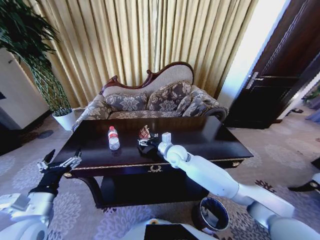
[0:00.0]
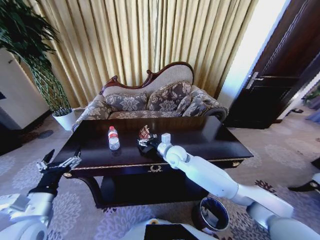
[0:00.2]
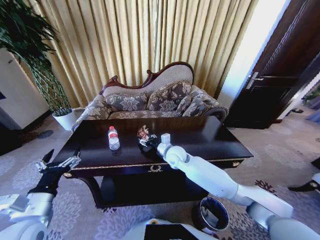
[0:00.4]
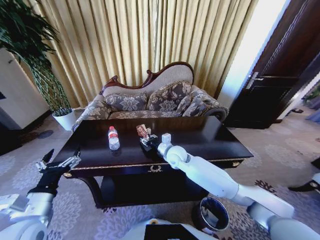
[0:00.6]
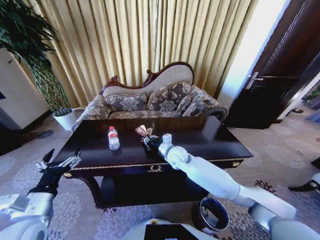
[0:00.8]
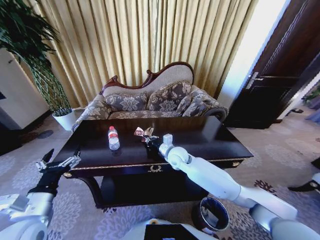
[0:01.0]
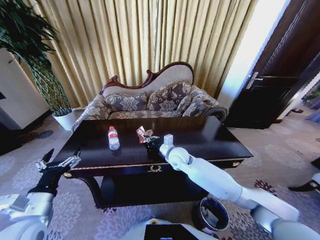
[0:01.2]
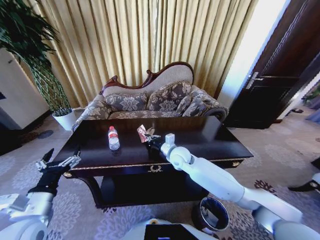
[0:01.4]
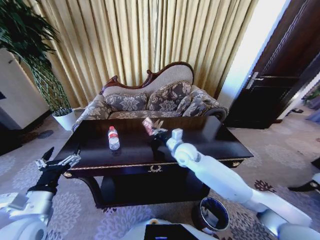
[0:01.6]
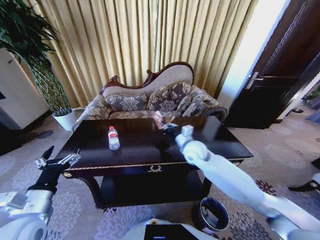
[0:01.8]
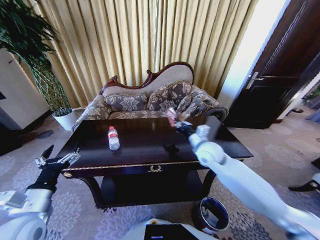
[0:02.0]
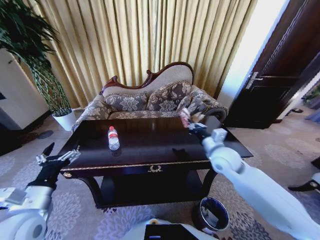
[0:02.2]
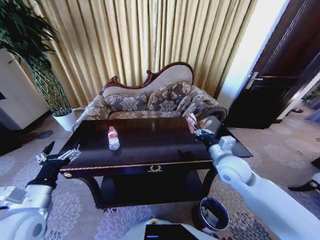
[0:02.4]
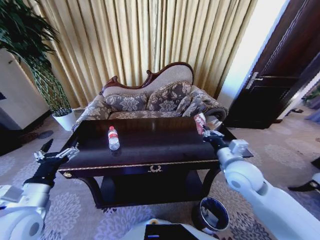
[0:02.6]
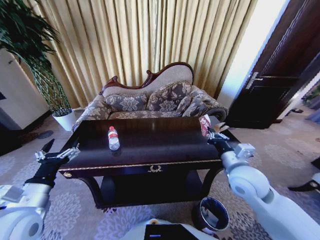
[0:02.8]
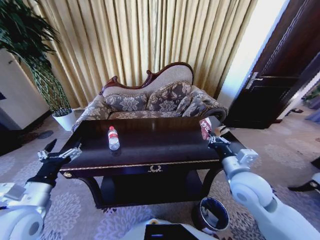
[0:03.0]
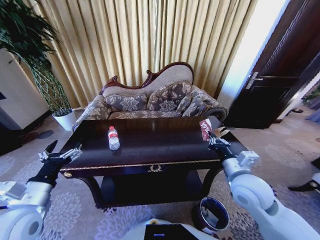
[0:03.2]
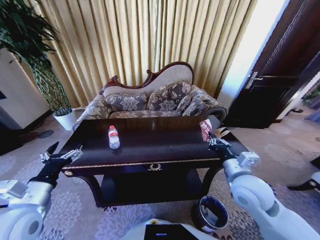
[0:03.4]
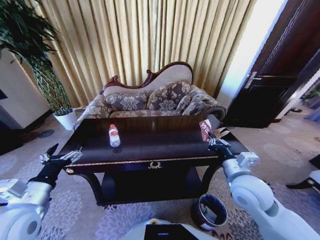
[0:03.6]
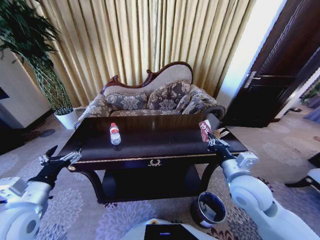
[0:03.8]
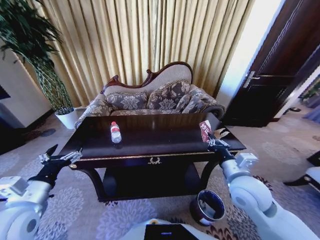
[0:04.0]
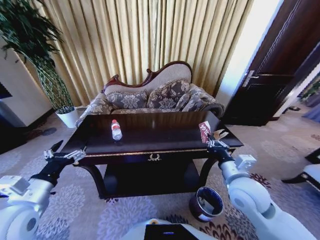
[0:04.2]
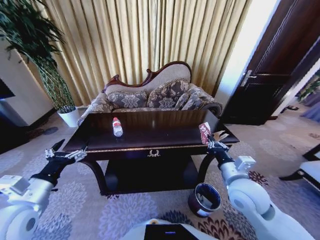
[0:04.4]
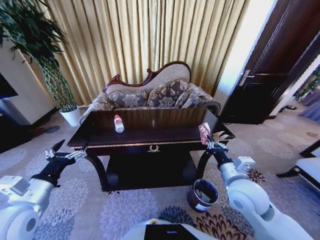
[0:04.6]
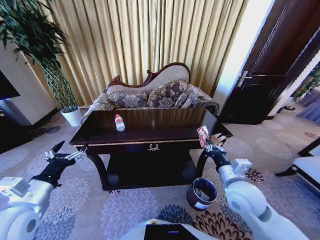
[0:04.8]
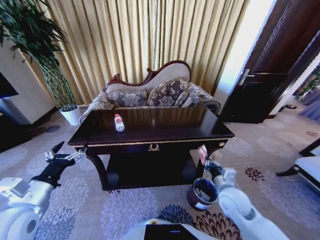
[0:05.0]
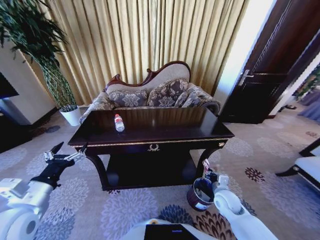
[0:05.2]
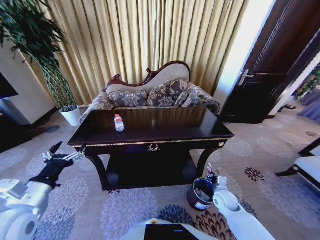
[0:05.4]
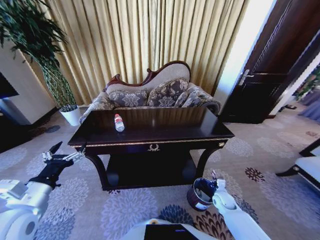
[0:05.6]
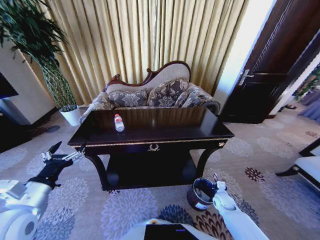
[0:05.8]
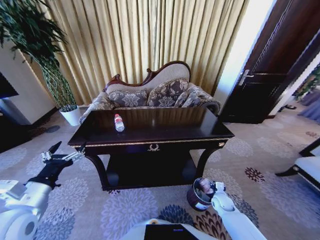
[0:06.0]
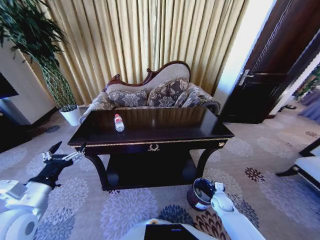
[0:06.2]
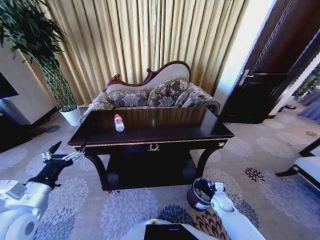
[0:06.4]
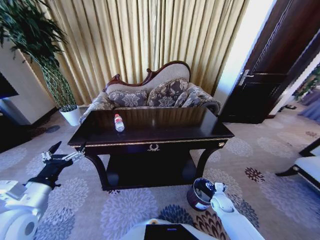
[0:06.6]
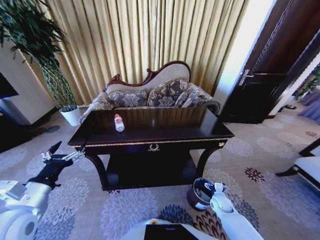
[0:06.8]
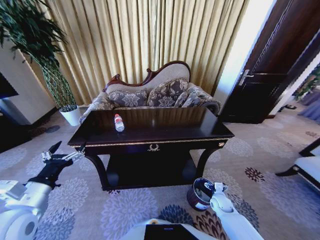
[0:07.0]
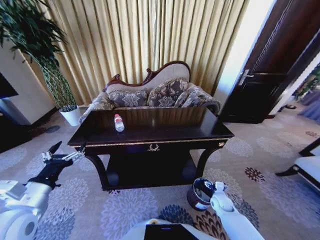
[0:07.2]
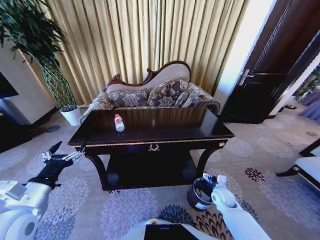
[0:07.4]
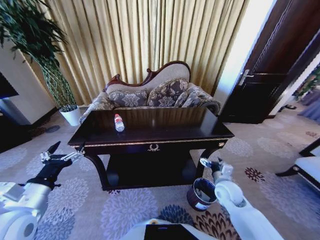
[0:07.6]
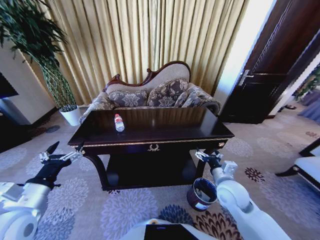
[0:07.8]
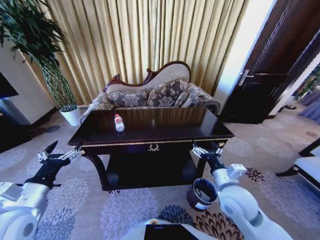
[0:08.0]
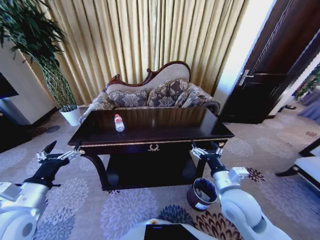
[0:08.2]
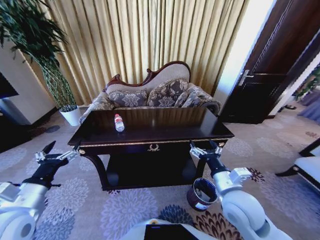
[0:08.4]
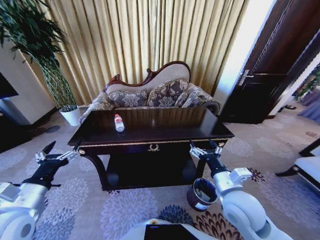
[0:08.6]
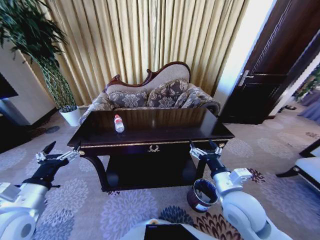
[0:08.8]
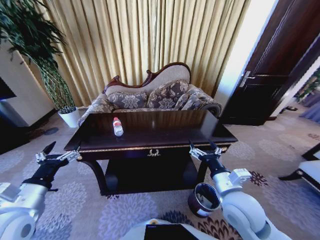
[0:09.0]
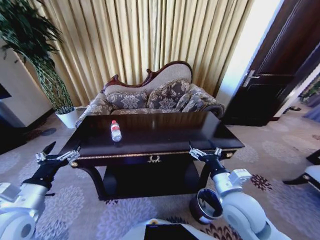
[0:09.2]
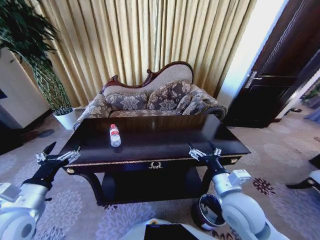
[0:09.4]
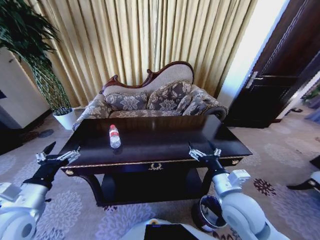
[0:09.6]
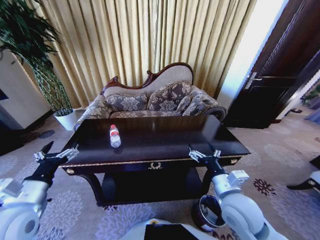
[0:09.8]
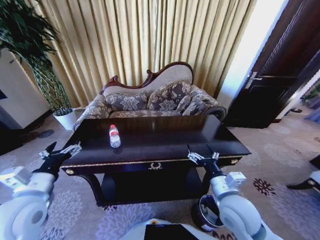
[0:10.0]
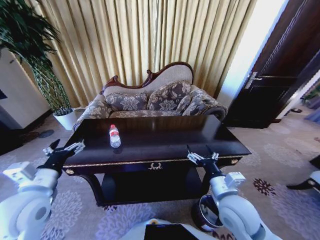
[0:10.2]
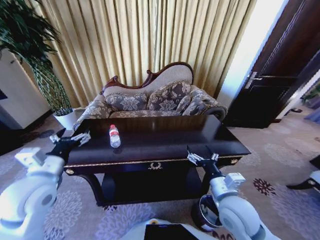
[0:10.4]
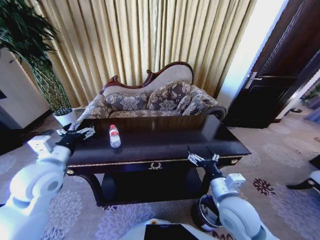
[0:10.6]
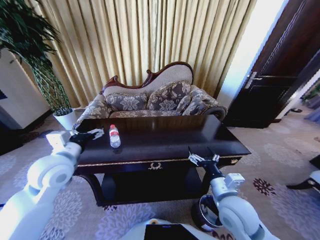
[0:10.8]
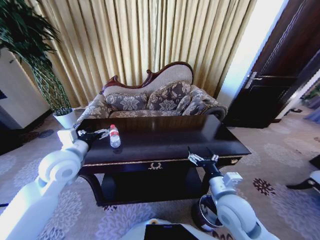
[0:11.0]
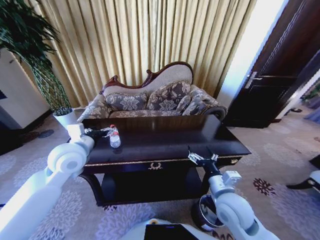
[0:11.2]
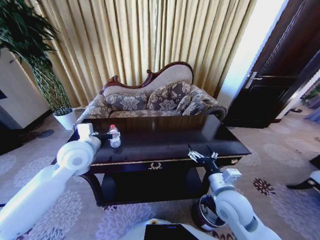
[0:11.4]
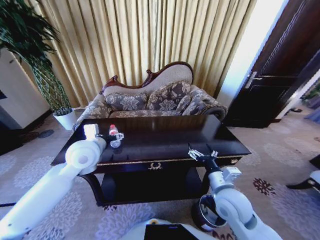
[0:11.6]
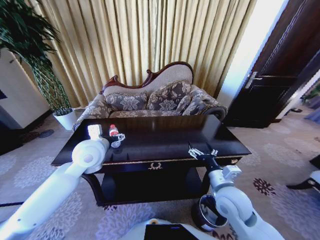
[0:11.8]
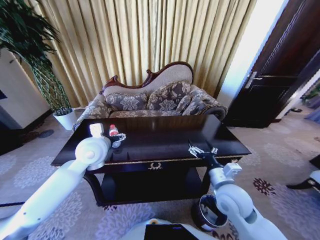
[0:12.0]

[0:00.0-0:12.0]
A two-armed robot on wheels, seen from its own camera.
Task of the whole recording: Move to the front of the table and place the trash on the table into the trash bin.
0:00.0 to 0:01.6: The right gripper closes its fingers.
0:01.6 to 0:03.0: The right gripper goes approximately 20 cm backward and to the right.
0:04.4 to 0:06.0: The right gripper moves downward, roughly 30 cm.
0:06.0 to 0:07.6: The right gripper shifts some 15 cm upward, and opens up.
0:07.6 to 0:09.0: The right gripper shifts approximately 15 cm upward, backward and to the left.
0:09.0 to 0:10.4: The left gripper moves forward, about 5 cm.
0:10.4 to 0:12.0: The left gripper shifts about 15 cm forward and to the right.

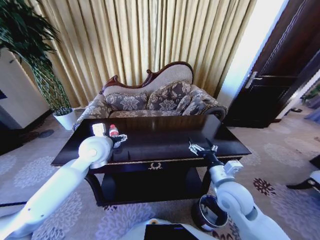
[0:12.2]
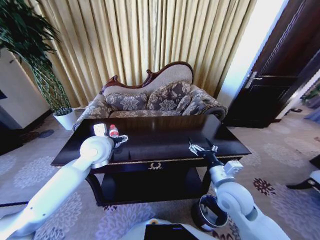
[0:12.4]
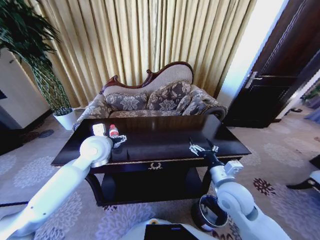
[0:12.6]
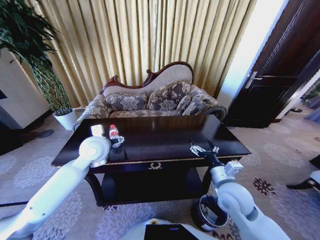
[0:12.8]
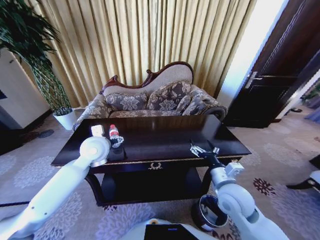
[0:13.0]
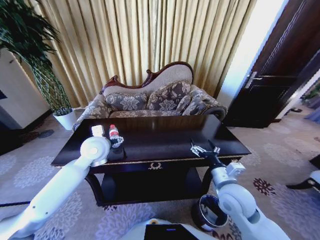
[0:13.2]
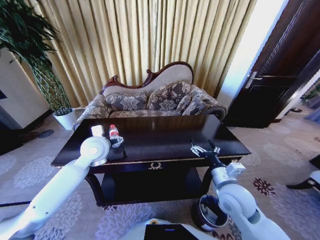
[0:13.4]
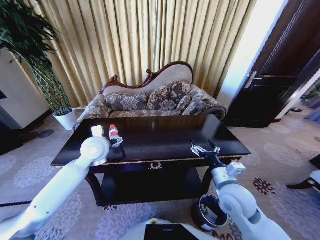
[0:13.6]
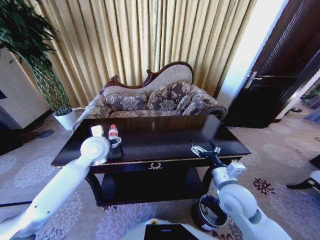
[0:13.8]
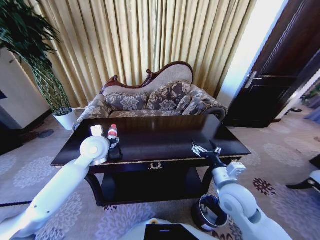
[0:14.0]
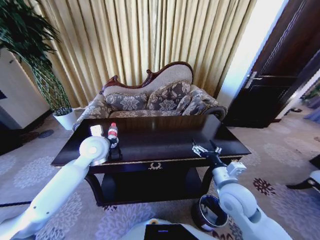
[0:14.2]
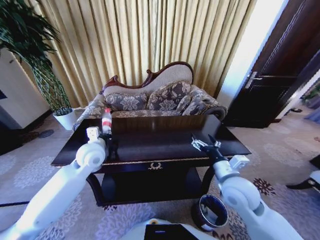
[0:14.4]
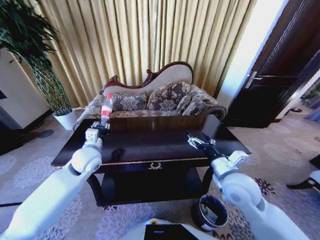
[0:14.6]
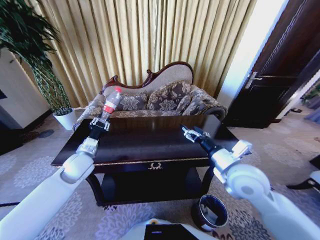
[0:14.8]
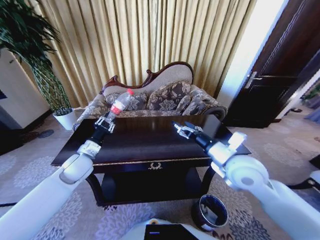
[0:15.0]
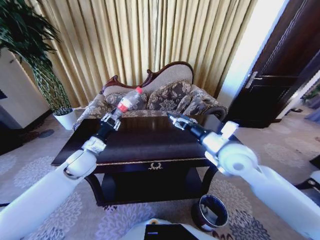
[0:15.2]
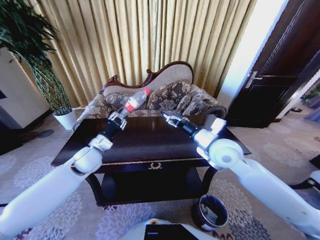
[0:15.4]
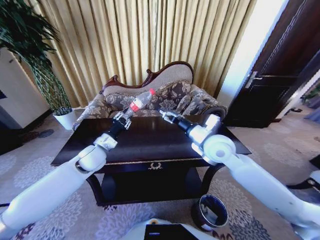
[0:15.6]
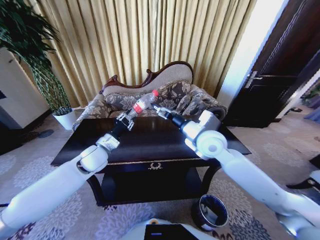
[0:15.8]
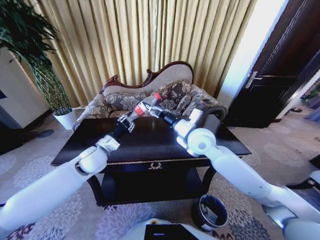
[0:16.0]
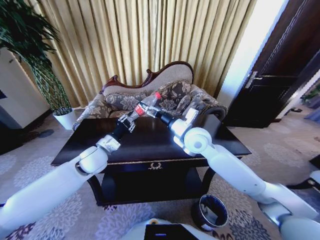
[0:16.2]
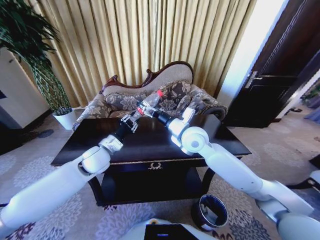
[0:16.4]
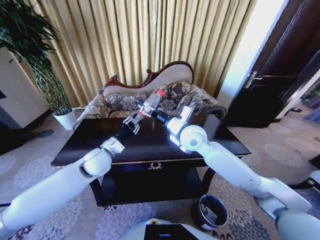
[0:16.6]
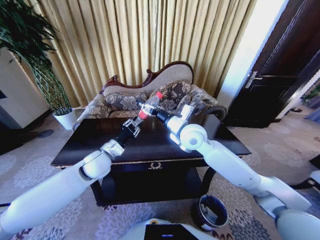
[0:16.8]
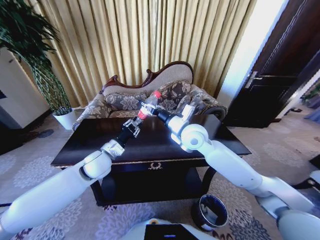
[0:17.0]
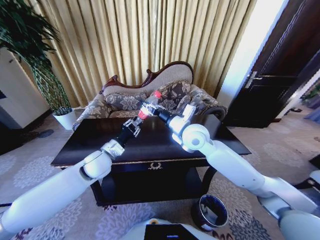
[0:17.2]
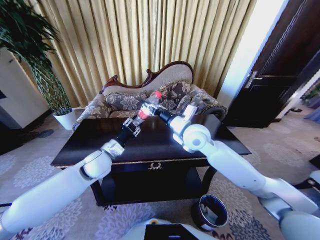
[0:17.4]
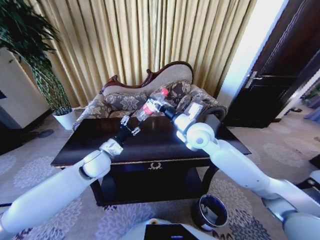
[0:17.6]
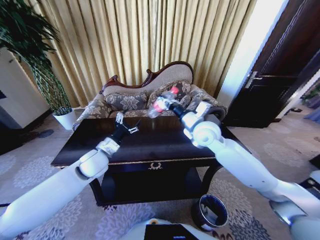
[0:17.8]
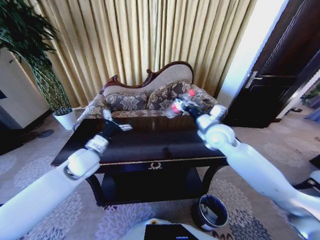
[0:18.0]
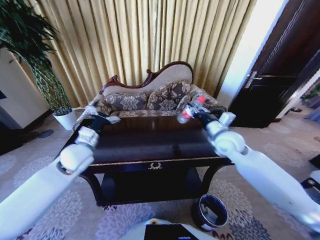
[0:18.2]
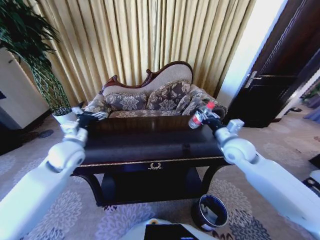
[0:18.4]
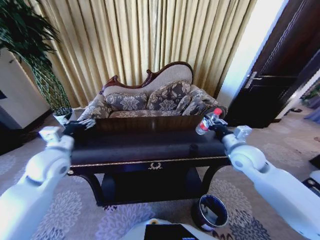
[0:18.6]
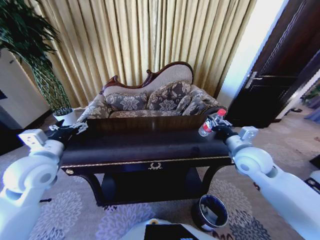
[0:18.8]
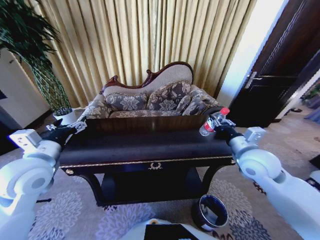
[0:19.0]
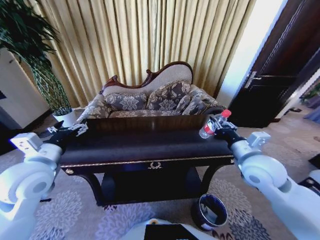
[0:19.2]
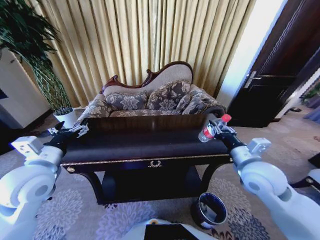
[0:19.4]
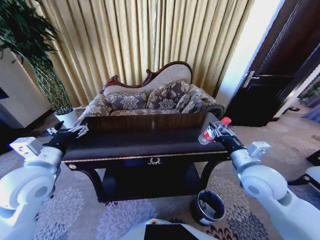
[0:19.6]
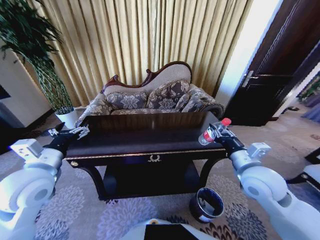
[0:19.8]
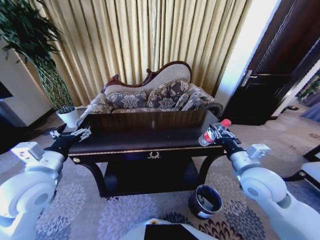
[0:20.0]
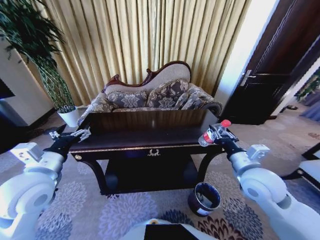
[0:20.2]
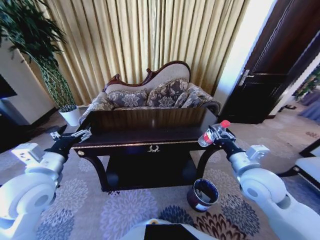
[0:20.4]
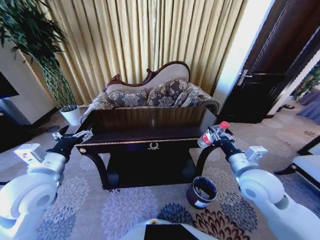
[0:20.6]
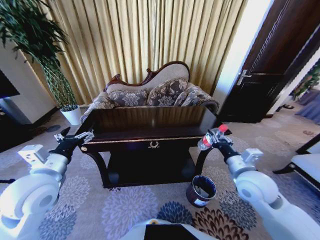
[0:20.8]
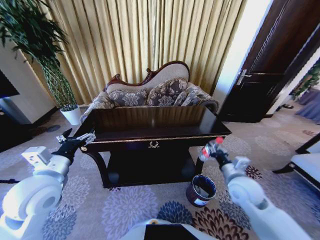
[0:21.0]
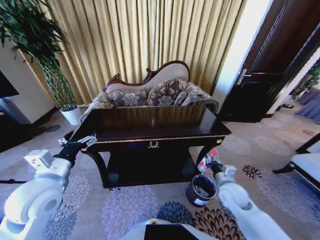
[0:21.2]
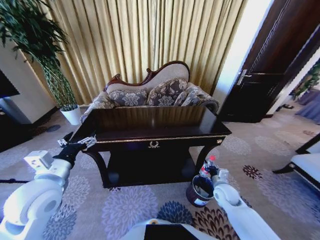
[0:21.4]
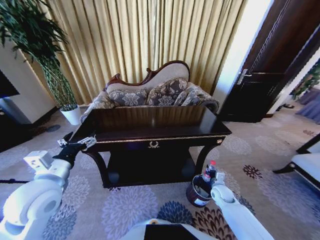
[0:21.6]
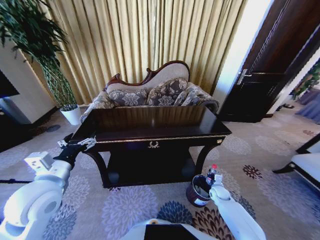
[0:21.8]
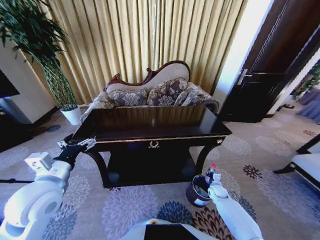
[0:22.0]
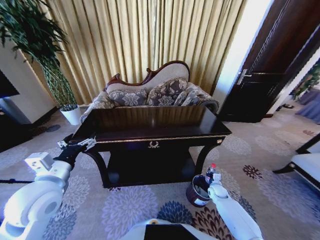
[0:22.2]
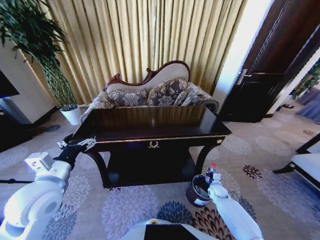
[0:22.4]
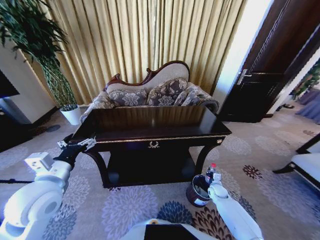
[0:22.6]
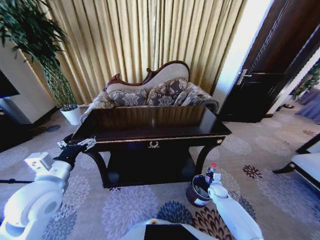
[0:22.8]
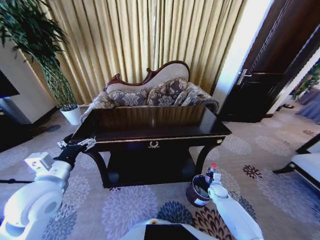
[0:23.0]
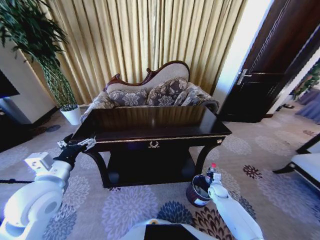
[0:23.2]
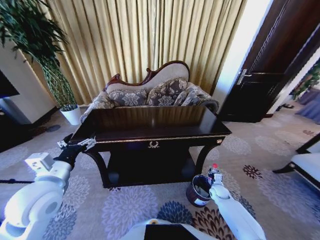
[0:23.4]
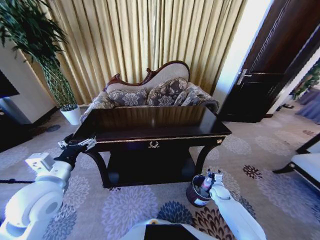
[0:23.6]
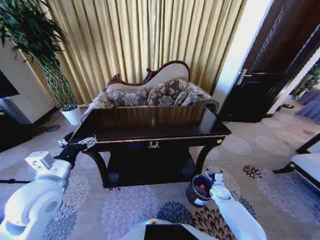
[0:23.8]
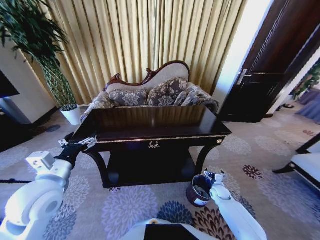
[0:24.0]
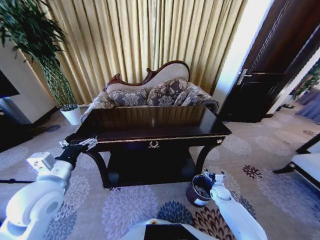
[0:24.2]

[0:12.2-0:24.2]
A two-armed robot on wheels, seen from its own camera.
Task of the whole recording: Move to the front of the table and place the trash on the table into the trash bin.
0:12.2 to 0:13.8: The grippers stay close to where they were, moving slightly.
0:13.8 to 0:15.2: The left gripper heads to the left and downward, covering some 10 cm, and closes its fingers, while the right gripper goes some 15 cm upward and forward.
0:15.2 to 0:16.6: The right gripper moves to the left and forward, roughly 15 cm. Meanwhile the left gripper moves to the right, about 5 cm.
0:16.6 to 0:18.2: The left gripper shifts some 5 cm to the left, and opens its fingers. Meanwhile the right gripper is displaced to the right by roughly 15 cm, and closes up.
0:18.2 to 0:19.8: The right gripper is displaced backward by some 15 cm. The left gripper shifts roughly 15 cm backward and upward.
0:19.8 to 0:21.2: The right gripper travels downward by approximately 15 cm.
0:21.2 to 0:22.6: The right gripper goes about 20 cm downward.
0:22.6 to 0:24.2: The right gripper opens.
